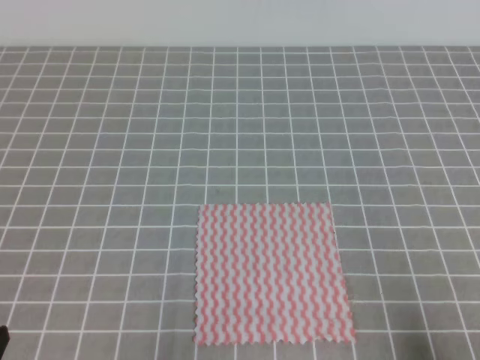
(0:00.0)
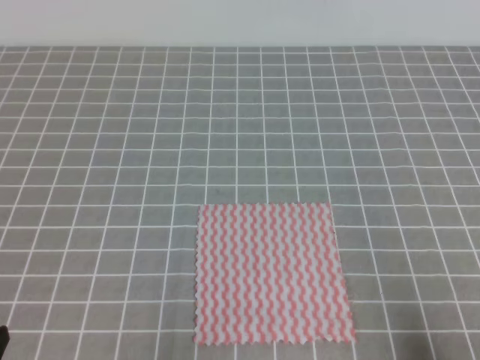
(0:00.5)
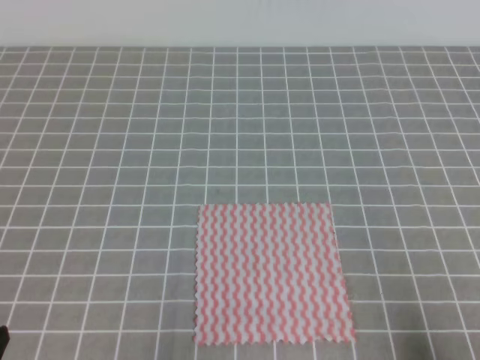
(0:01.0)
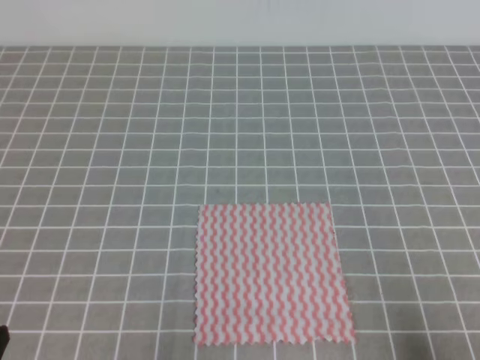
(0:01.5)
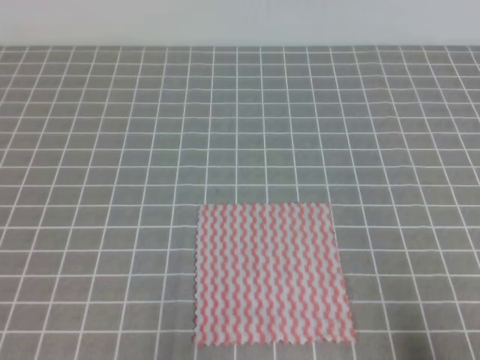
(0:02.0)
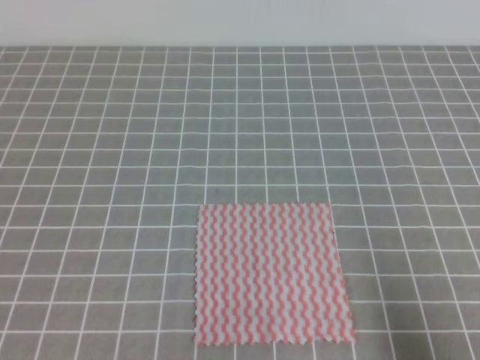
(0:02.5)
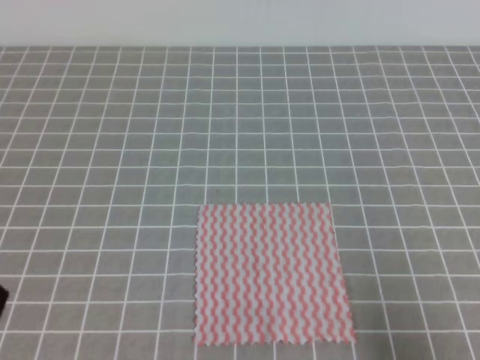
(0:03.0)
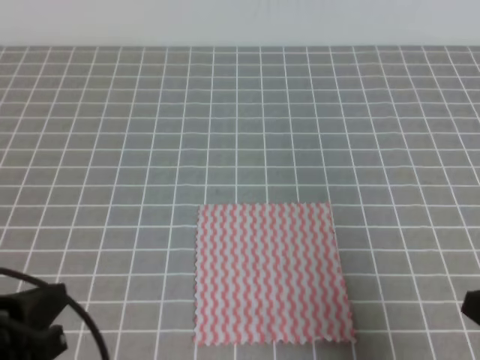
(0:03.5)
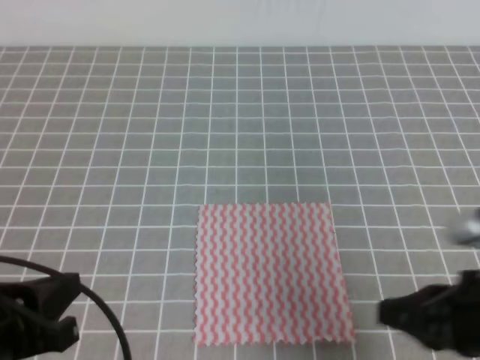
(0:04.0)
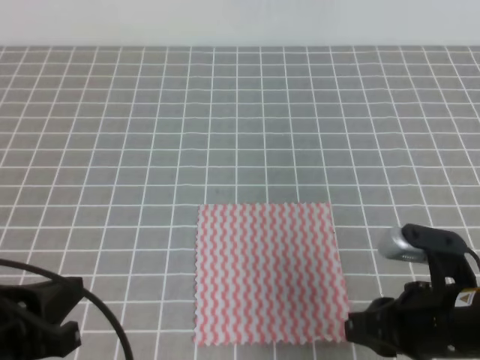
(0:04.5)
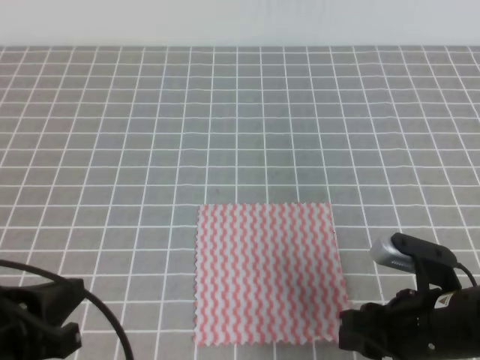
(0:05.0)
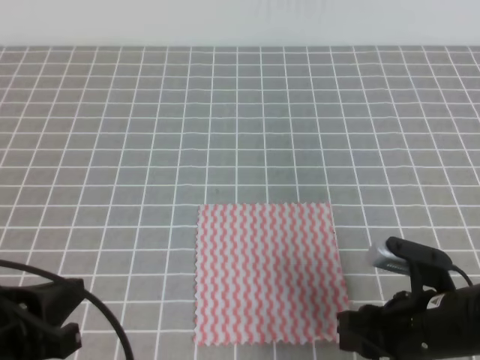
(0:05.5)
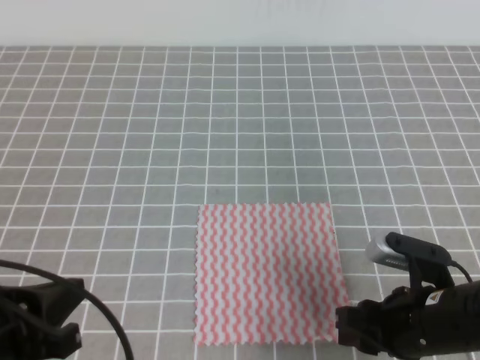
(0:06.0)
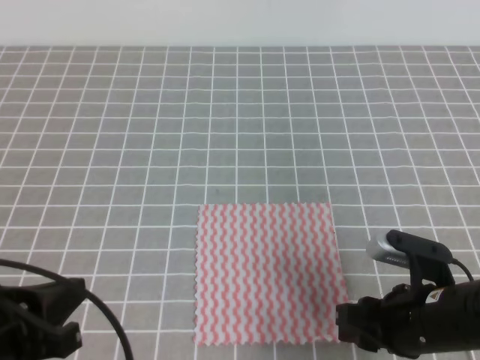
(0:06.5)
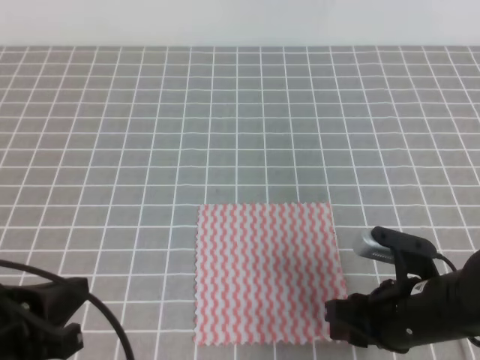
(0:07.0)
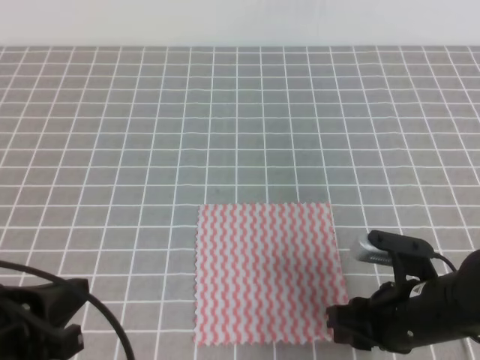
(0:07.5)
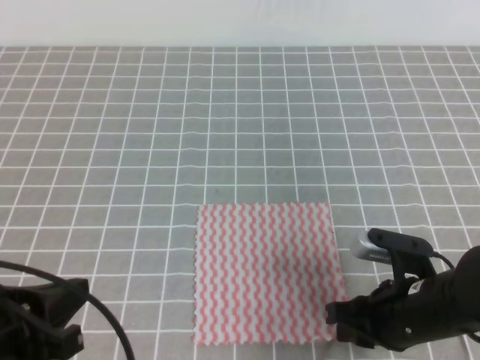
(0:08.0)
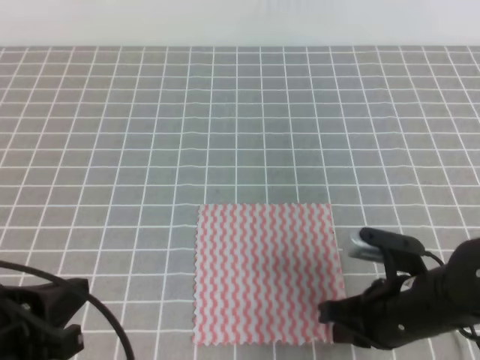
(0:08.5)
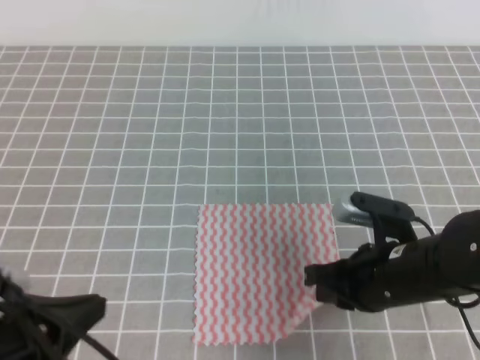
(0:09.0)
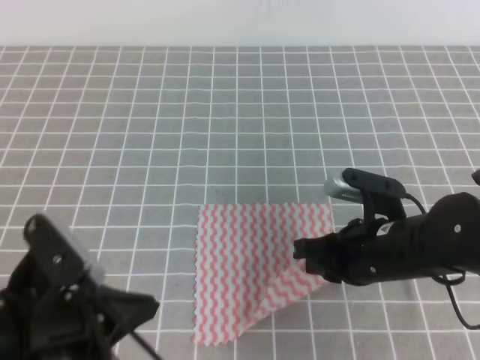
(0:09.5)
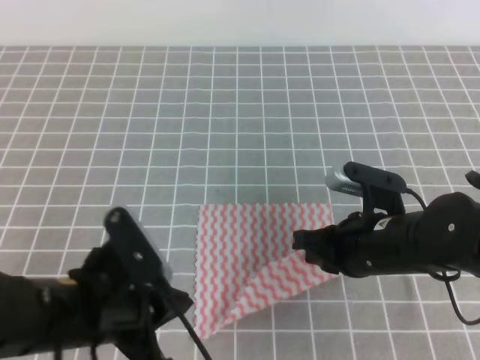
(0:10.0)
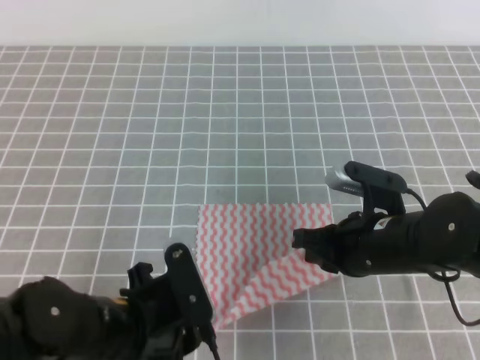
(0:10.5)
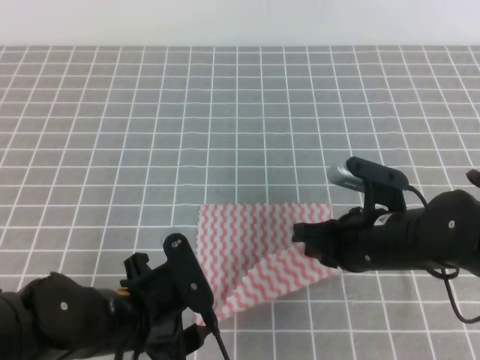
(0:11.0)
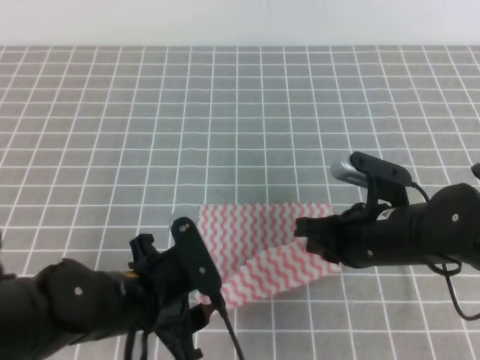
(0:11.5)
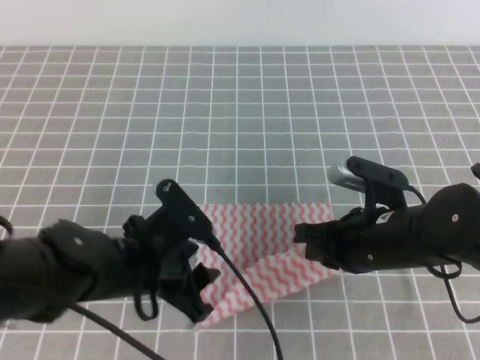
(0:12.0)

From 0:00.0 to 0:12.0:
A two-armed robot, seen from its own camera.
From 0:00.0 to 0:02.0: The two grippers keep their place.
From 0:02.0 to 0:04.0: The right gripper travels forward, to the left and upward by some 15 cm, while the left gripper is displaced forward and upward by approximately 10 cm.
From 0:04.0 to 0:06.0: The right gripper travels downward by roughly 5 cm, and opens its fingers.
From 0:06.0 to 0:08.0: The right gripper closes.
From 0:08.0 to 0:10.0: The left gripper travels to the right by approximately 10 cm. Meanwhile the right gripper heads forward, covering about 5 cm, and closes.
From 0:10.0 to 0:12.0: The left gripper goes some 5 cm forward, and opens up.

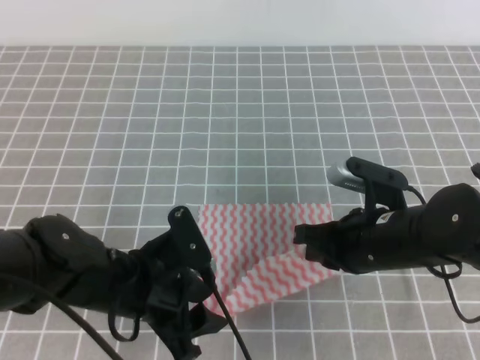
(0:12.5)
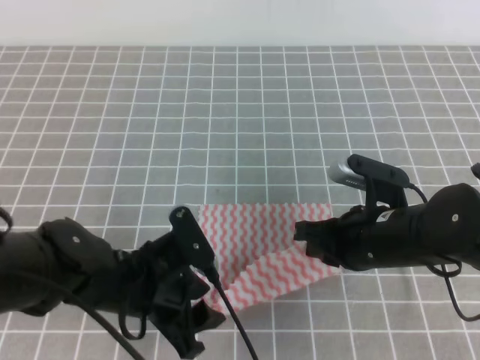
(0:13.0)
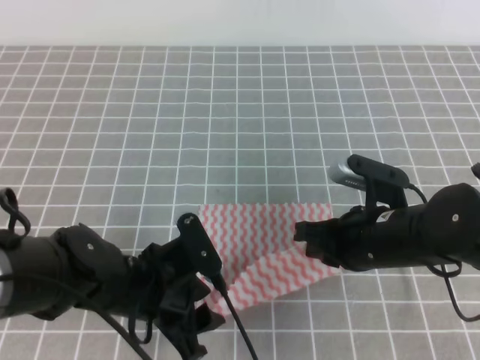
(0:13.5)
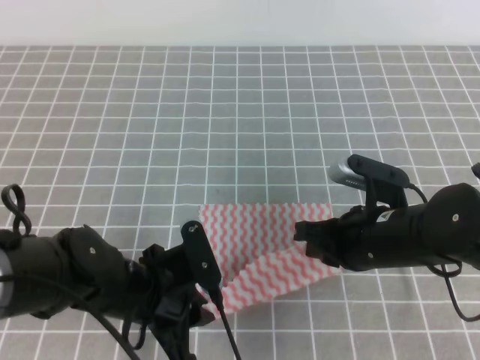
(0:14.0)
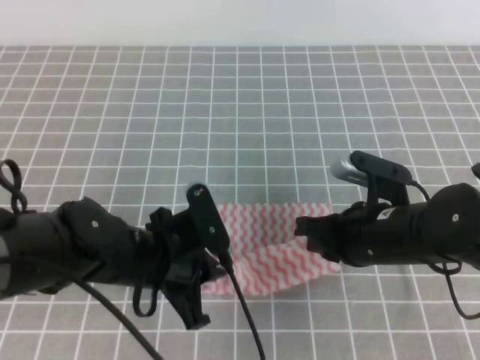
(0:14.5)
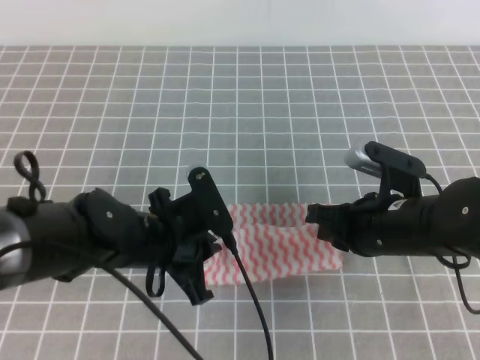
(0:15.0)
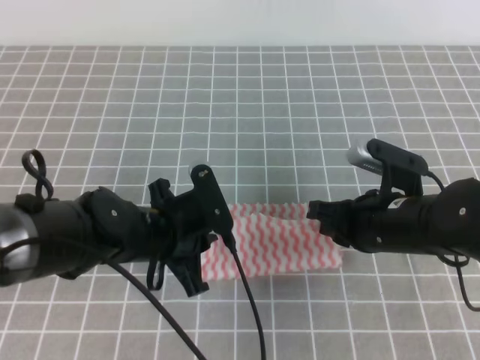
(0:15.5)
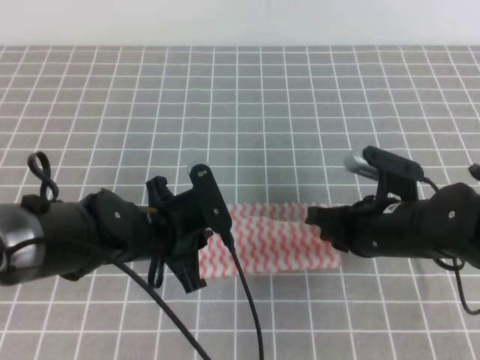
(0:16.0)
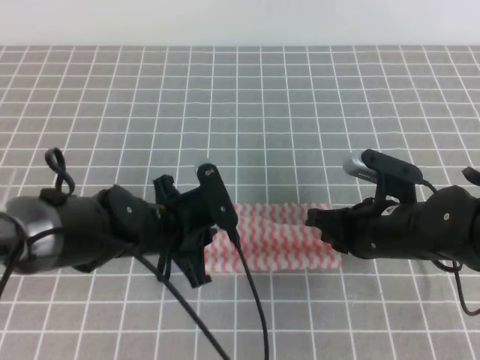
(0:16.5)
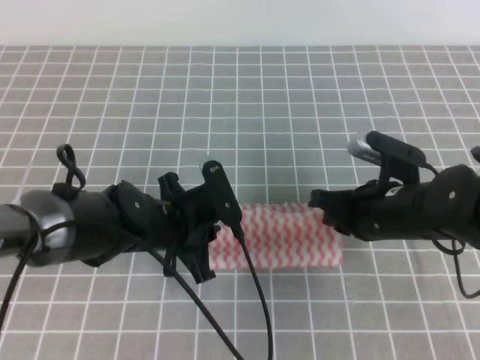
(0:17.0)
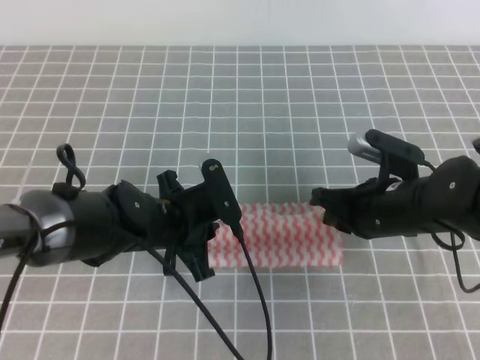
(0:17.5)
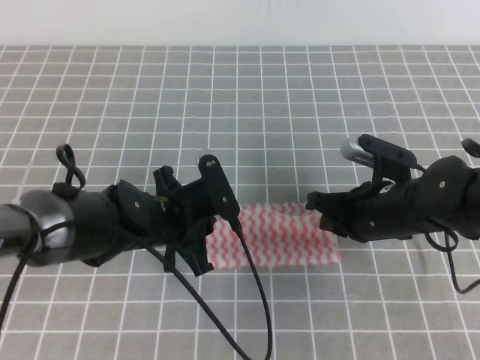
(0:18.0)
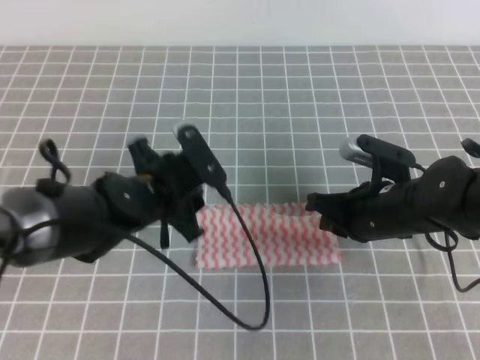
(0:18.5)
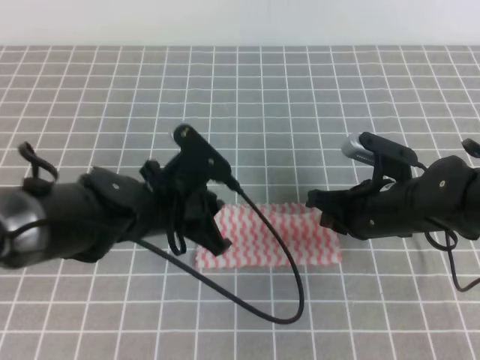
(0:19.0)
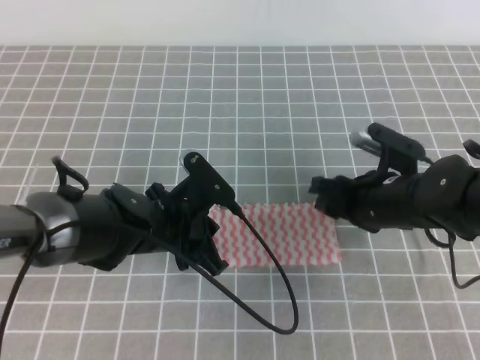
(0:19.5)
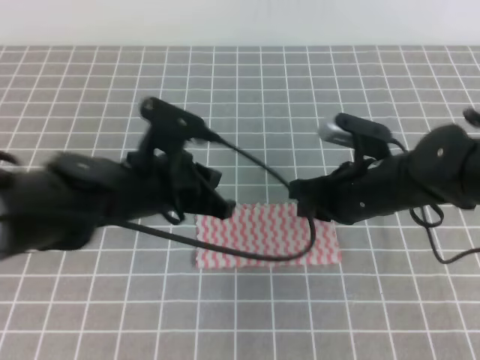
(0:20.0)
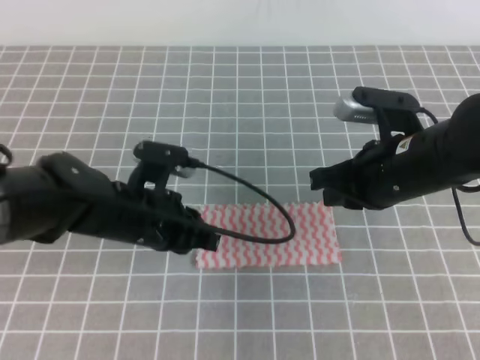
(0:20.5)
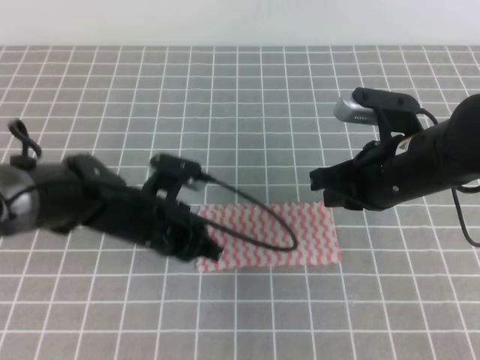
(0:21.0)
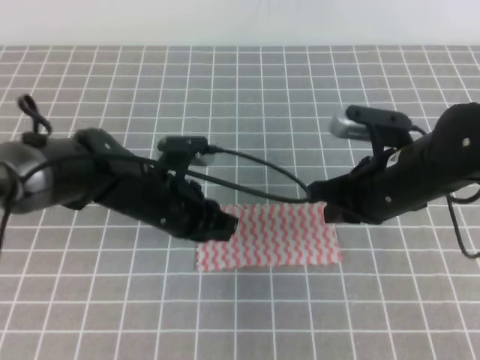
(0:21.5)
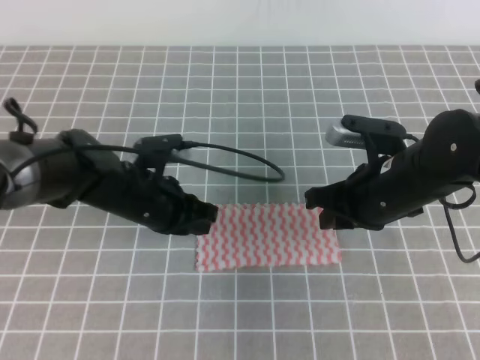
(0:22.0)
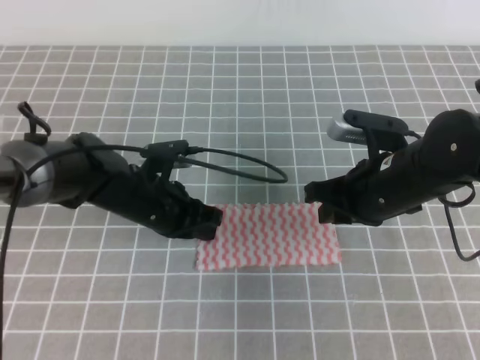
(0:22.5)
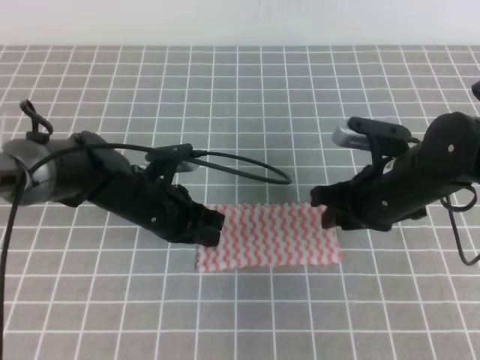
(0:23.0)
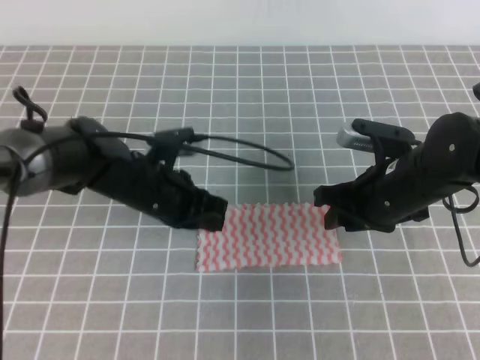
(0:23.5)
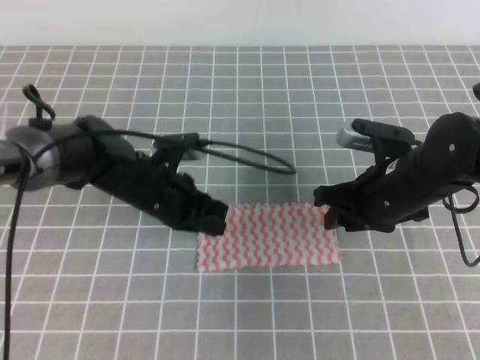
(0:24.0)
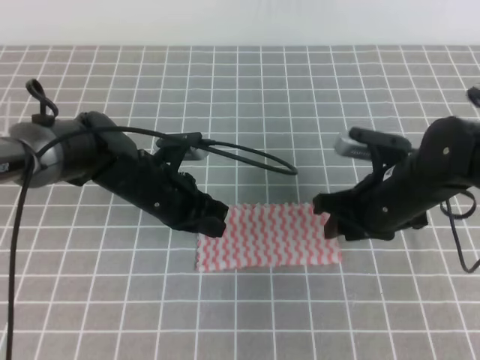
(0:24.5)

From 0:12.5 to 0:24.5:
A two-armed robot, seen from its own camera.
From 0:12.5 to 0:14.5: The left gripper closes.
From 0:14.5 to 0:16.5: The left gripper changes place by approximately 5 cm.
From 0:16.5 to 0:18.5: The left gripper opens up.
From 0:18.5 to 0:20.5: The right gripper heads upward, covering about 10 cm, and opens, then closes again; the left gripper closes its fingers.
From 0:20.5 to 0:22.5: The right gripper opens, while the left gripper goes roughly 5 cm forward.
From 0:22.5 to 0:24.5: The right gripper opens.

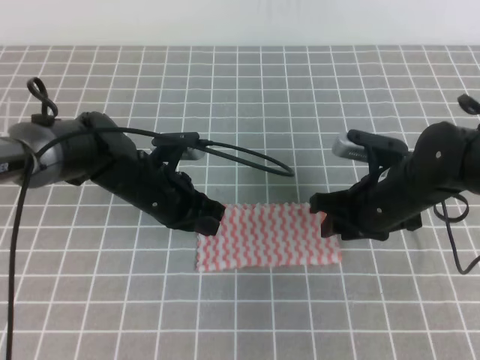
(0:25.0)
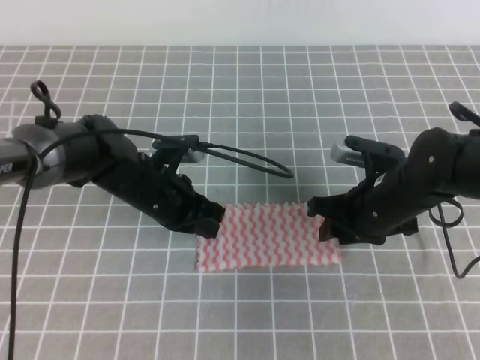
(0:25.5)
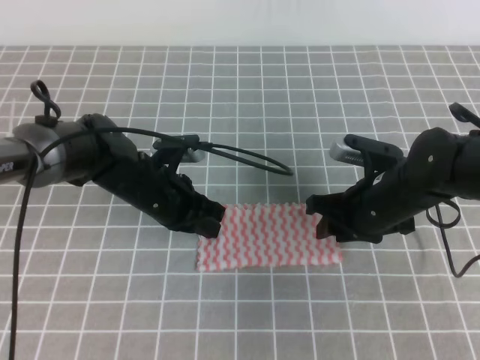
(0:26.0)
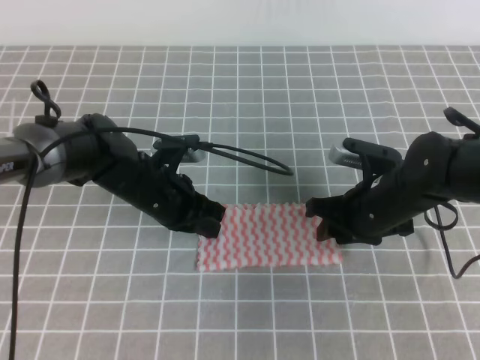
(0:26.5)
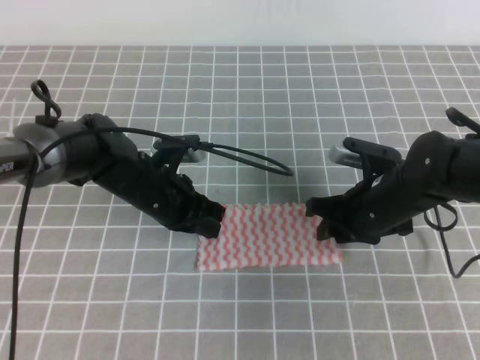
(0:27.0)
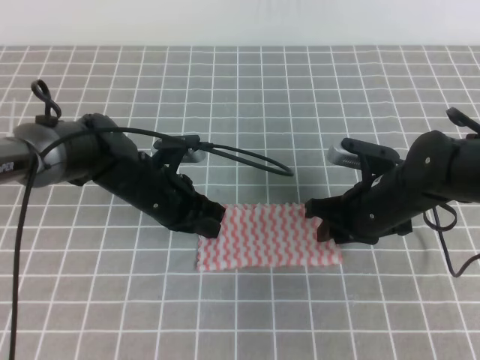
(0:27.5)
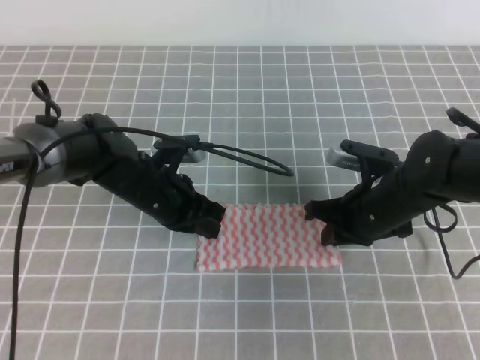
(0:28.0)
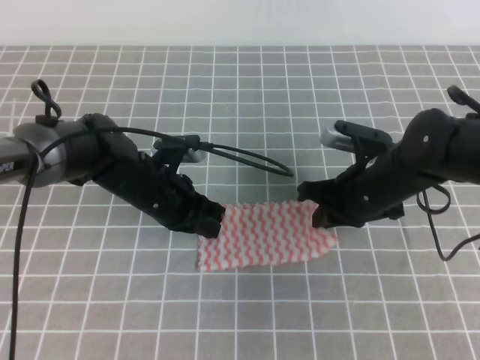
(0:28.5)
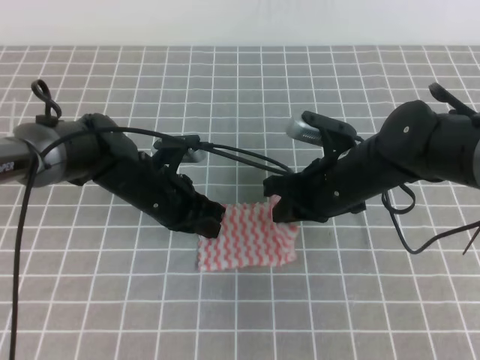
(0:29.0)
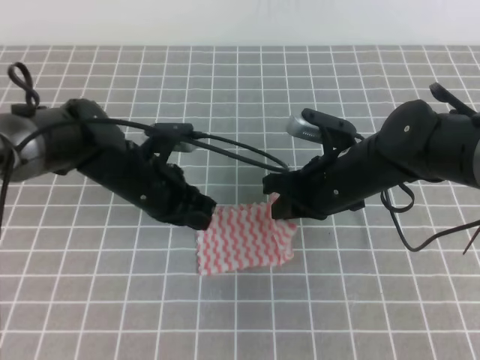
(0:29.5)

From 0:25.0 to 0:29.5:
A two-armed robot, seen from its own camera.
From 0:25.0 to 0:27.0: The grippers make only small movements.
From 0:27.0 to 0:29.5: The right gripper ends up roughly 5 cm from where it was, and closes up.
